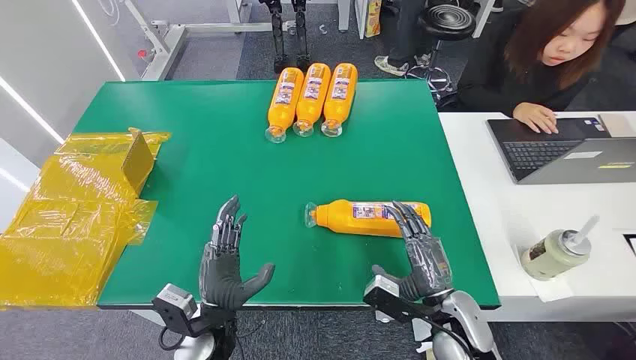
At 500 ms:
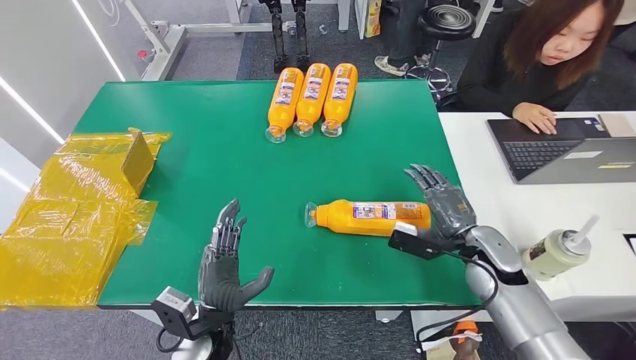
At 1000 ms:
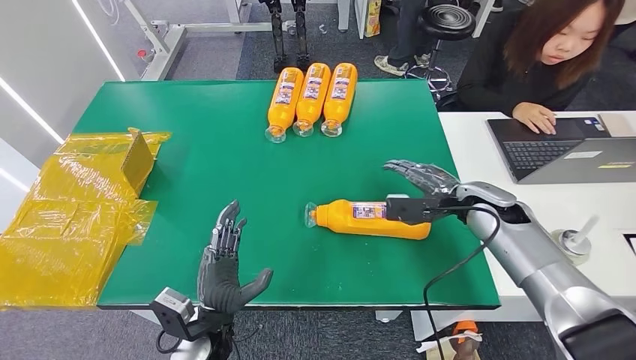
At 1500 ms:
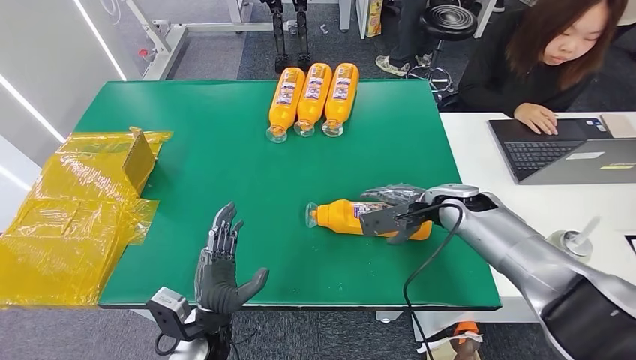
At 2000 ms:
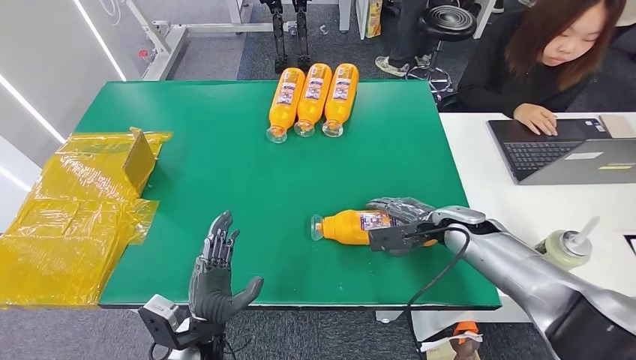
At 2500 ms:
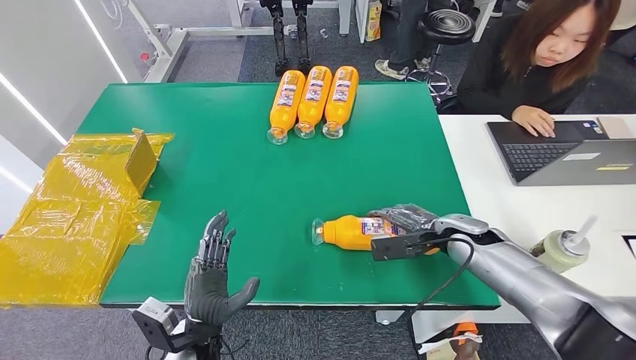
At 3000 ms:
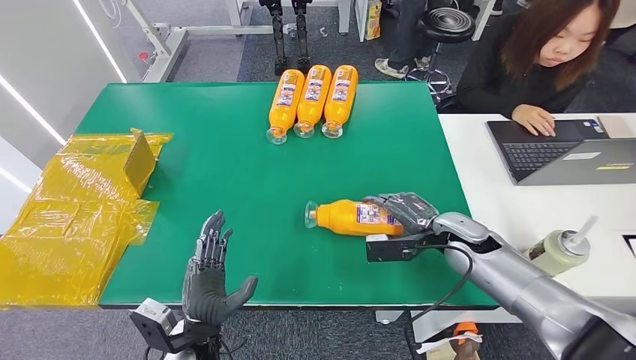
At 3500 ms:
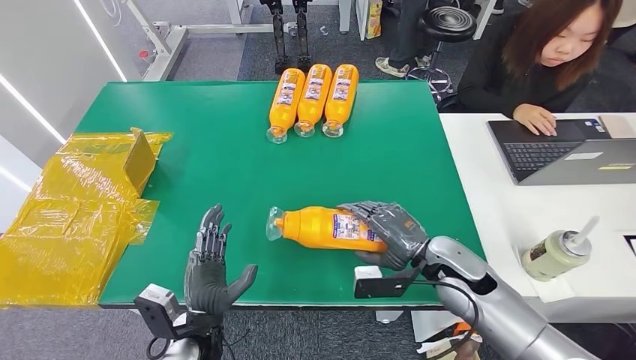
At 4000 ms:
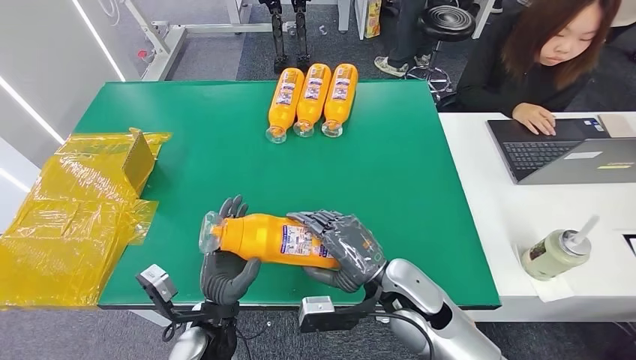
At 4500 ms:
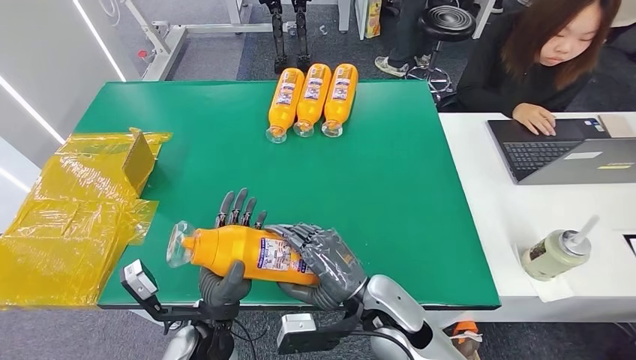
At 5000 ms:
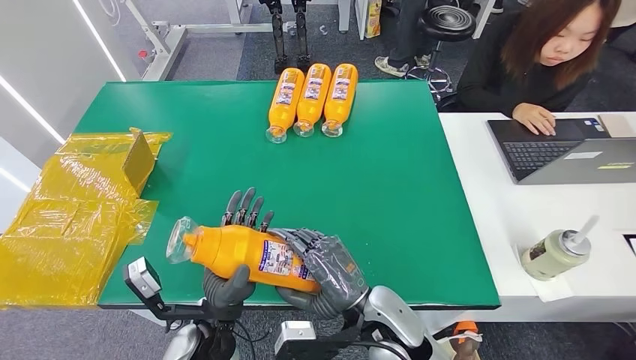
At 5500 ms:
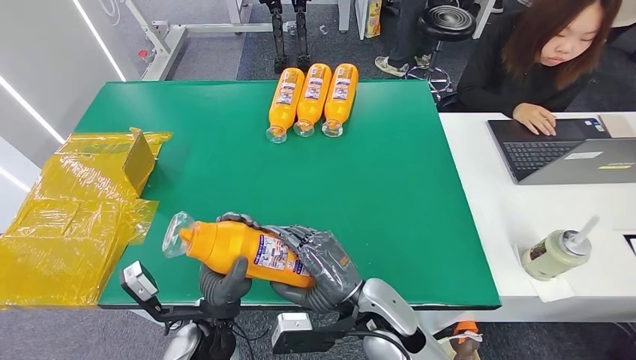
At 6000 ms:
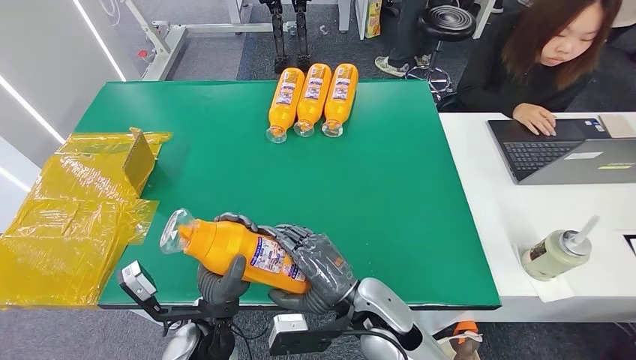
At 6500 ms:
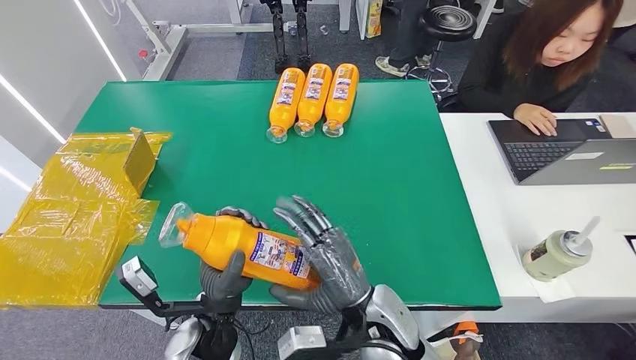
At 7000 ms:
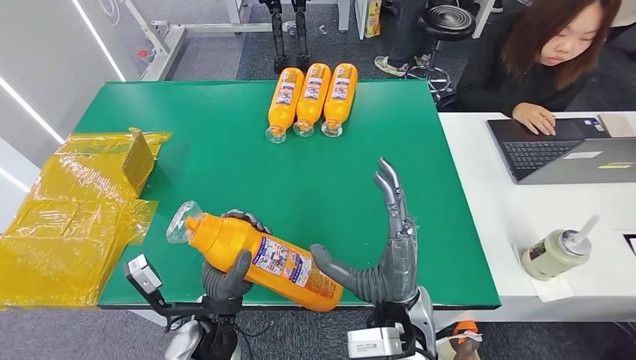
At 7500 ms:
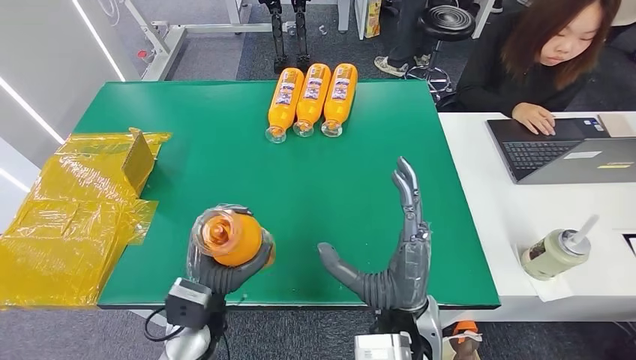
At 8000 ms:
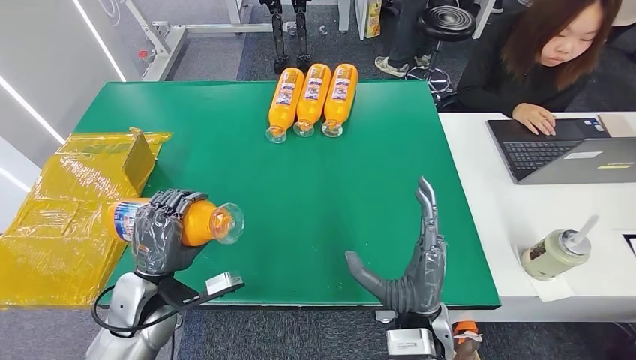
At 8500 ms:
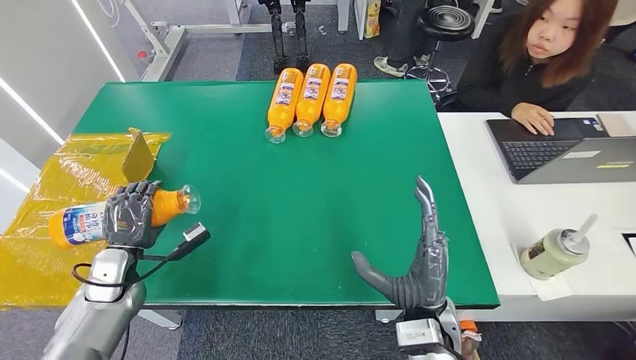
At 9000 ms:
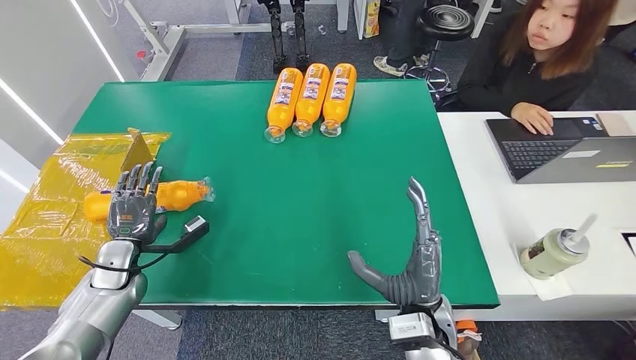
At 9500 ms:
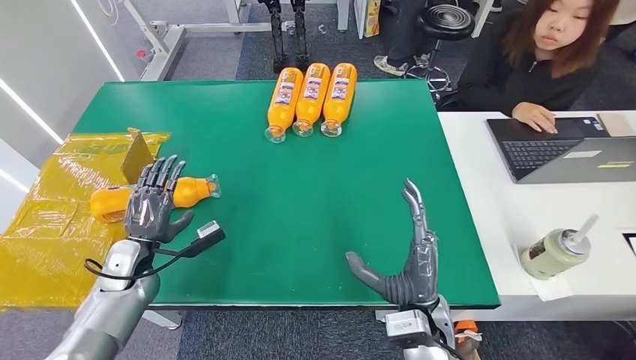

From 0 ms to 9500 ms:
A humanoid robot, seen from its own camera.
Step, from 0 ms to 3500 ms: Pick up the bottle from the table.
Step, from 4000 ms to 9000 ms: Turn the bottle to the front side.
From 2000 ms to 4000 ms: The right hand goes approximately 20 cm to the left and backward.
From 4000 ms to 5500 ms: The right hand moves to the left, some 5 cm.
From 5500 ms to 7500 ms: The right hand moves approximately 5 cm.
From 7500 ms to 9500 ms: The right hand shifts some 10 cm downward and to the right. Meanwhile the left hand heads to the left and forward, covering roughly 20 cm.
